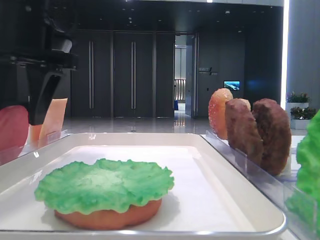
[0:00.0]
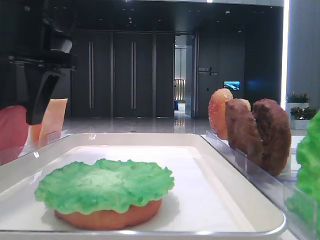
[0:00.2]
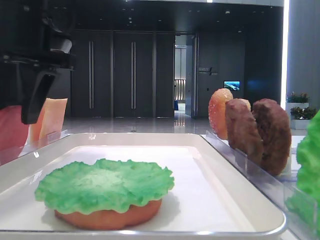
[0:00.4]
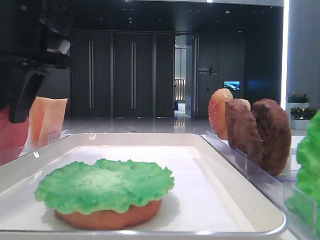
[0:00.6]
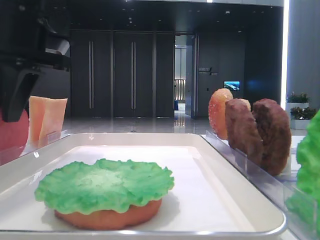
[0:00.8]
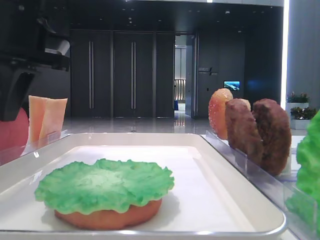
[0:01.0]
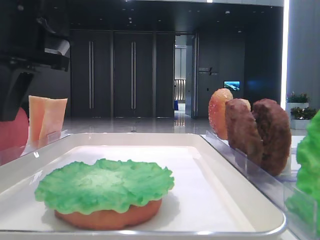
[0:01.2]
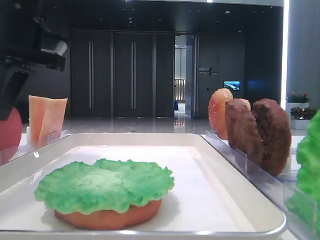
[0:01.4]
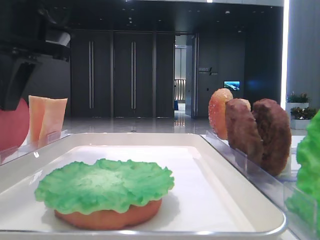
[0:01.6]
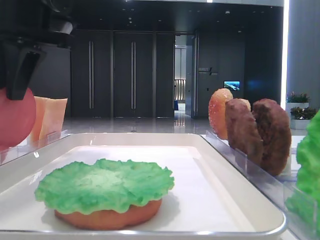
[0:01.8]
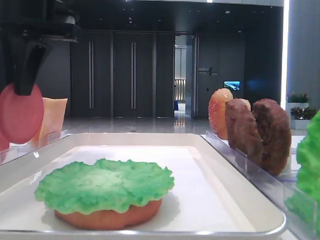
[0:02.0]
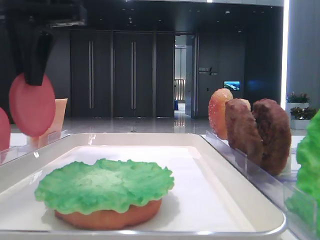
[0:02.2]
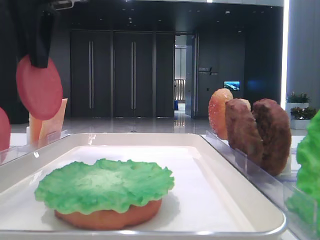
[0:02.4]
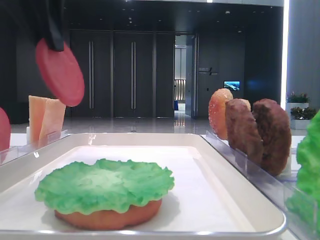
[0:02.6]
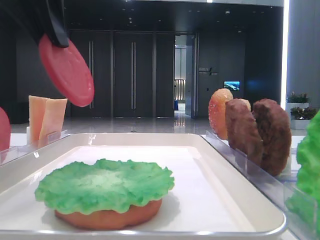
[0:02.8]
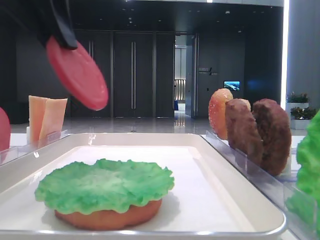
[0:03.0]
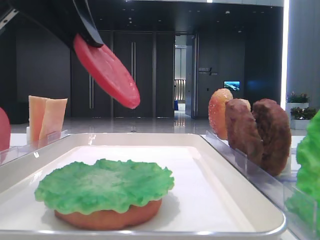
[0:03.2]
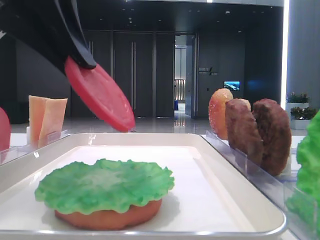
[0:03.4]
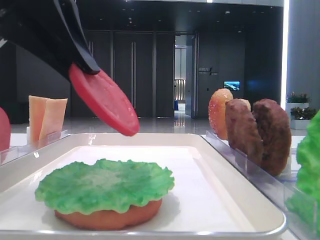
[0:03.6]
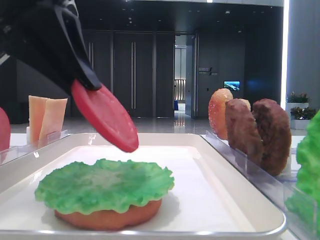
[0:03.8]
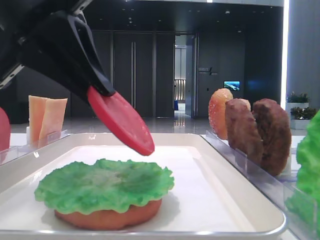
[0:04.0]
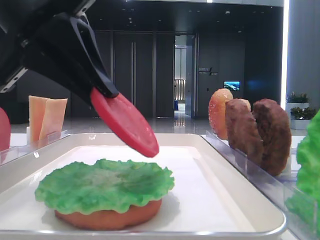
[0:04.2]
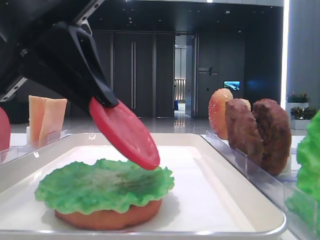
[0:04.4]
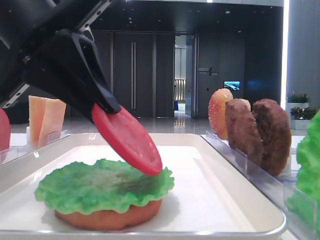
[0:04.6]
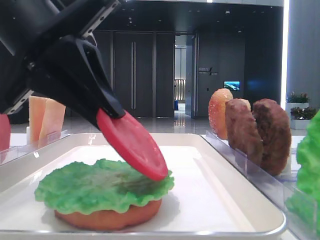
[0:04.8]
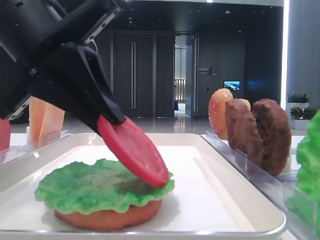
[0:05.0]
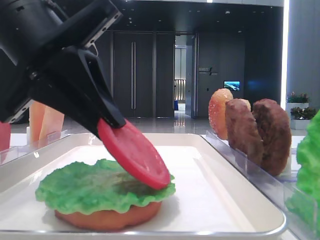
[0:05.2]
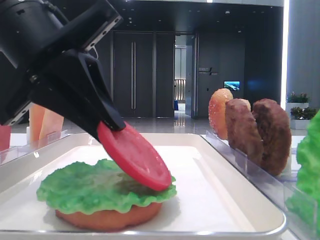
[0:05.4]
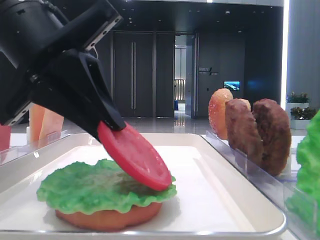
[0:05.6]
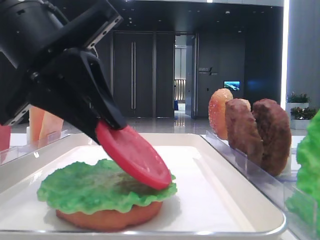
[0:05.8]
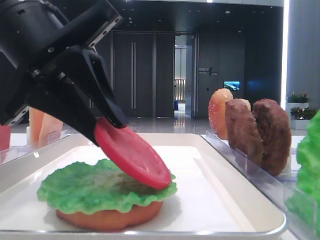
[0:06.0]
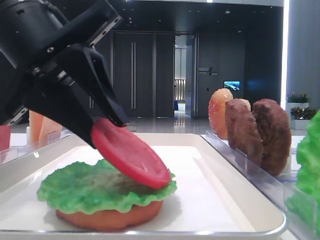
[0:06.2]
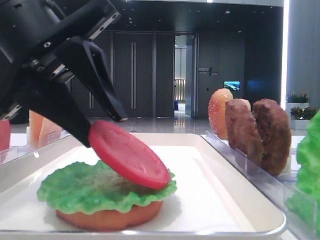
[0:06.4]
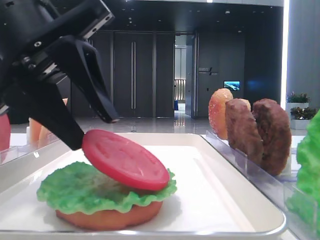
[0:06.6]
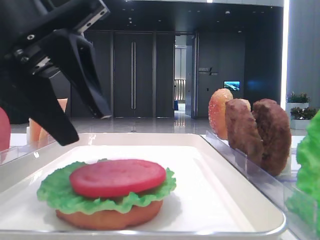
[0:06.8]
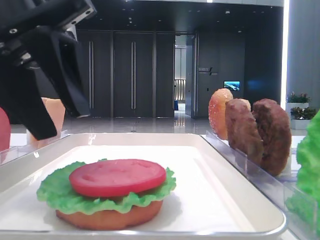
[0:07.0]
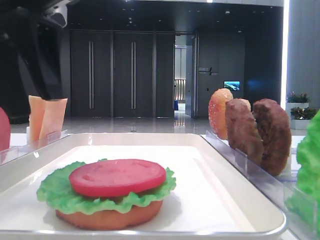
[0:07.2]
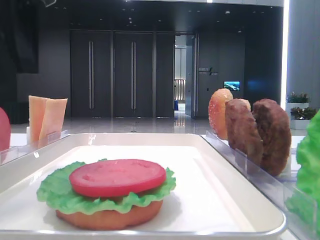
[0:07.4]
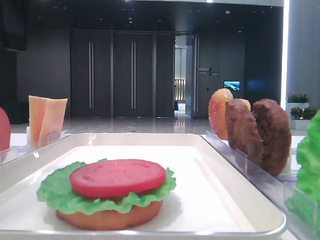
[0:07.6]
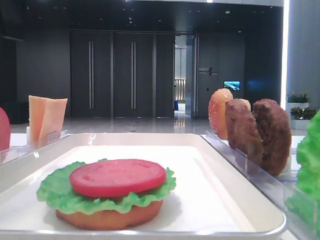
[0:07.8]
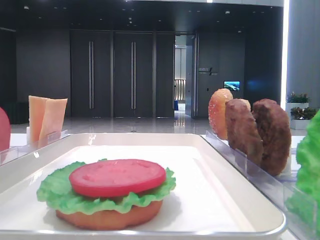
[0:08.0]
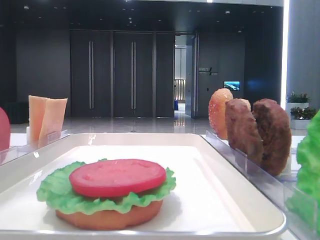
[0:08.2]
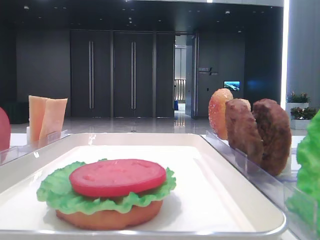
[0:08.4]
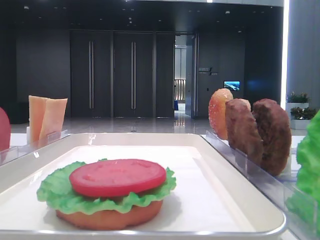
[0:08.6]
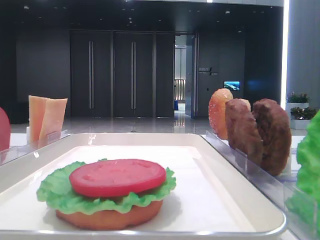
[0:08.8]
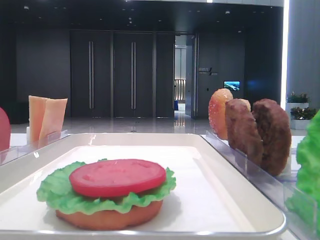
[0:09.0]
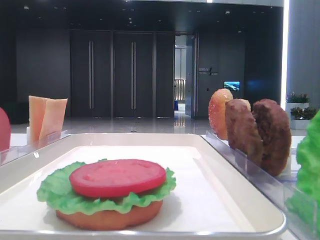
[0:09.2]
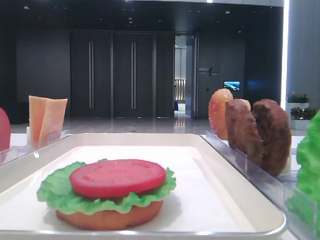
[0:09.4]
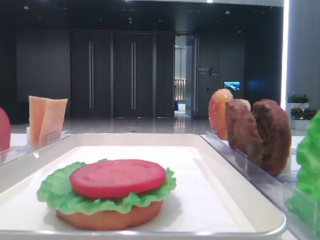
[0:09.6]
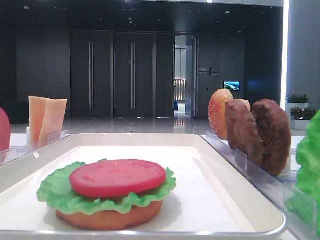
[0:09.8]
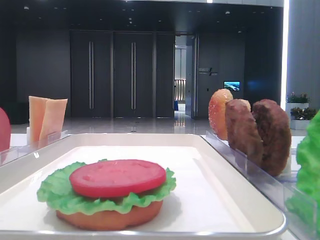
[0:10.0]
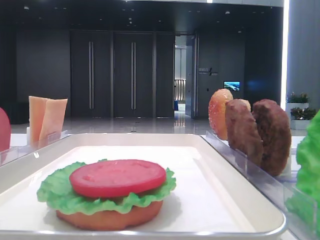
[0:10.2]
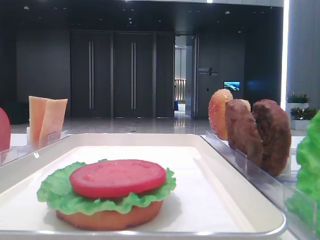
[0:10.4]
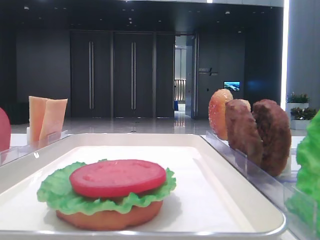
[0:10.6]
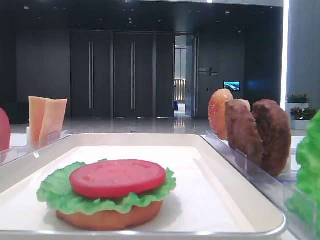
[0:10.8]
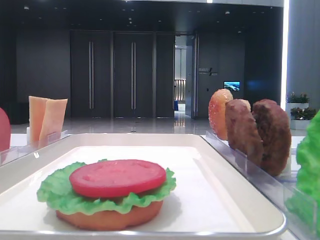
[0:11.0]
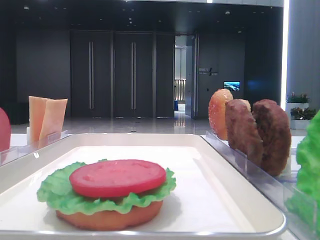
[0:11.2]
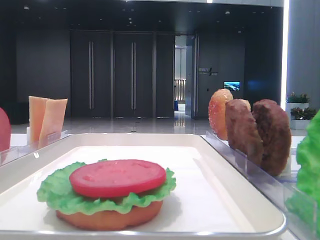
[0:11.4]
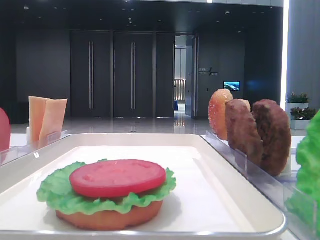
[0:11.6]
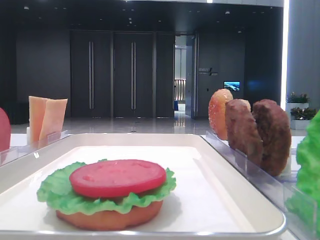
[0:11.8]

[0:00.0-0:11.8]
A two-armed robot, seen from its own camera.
Step, 0:02.0 to 0:06.8: Place the tomato slice on the lettuce leaf with the left hand.
0:00.0 to 0:01.4: The left gripper closes.
0:01.4 to 0:03.0: The left gripper heads backward and upward, covering roughly 10 cm.
0:03.0 to 0:04.4: The left gripper travels downward by about 10 cm.
0:04.4 to 0:06.0: The grippers make only small movements.
0:06.0 to 0:07.4: The left gripper goes roughly 10 cm upward, and opens up.
0:07.4 to 0:08.8: The left gripper shifts some 15 cm to the left and upward.
0:10.4 to 0:11.8: Both grippers stay about where they are.

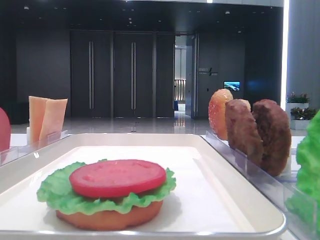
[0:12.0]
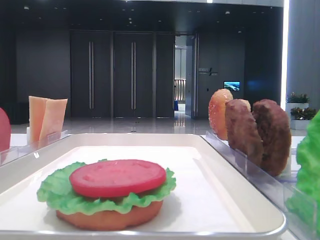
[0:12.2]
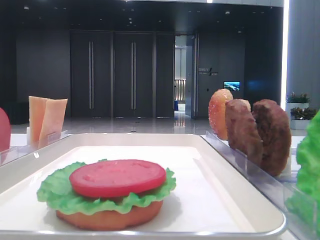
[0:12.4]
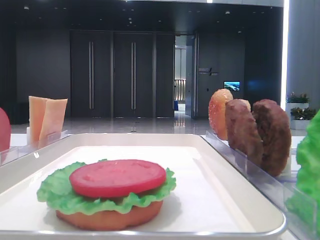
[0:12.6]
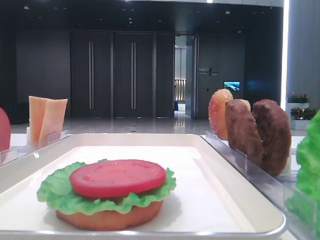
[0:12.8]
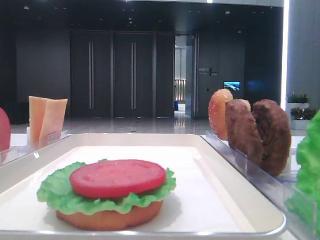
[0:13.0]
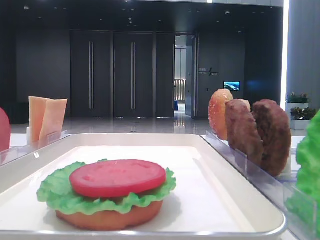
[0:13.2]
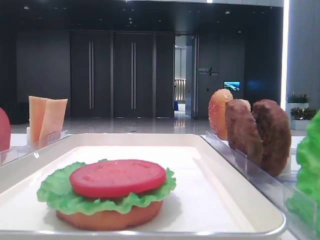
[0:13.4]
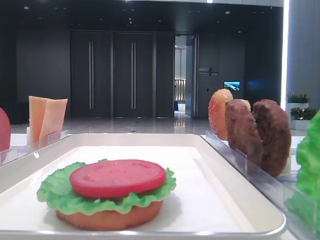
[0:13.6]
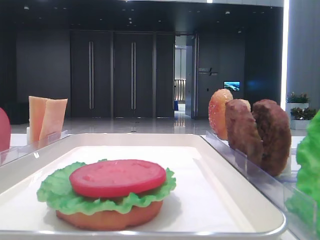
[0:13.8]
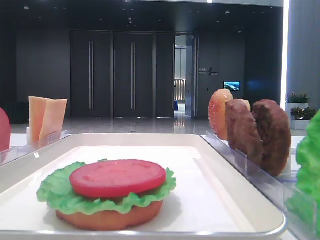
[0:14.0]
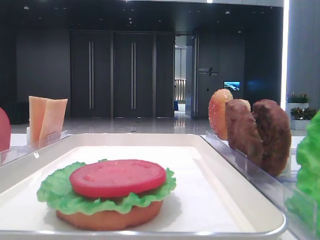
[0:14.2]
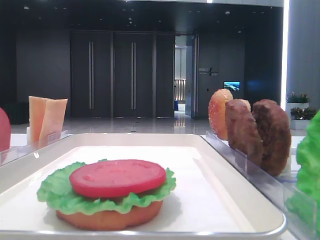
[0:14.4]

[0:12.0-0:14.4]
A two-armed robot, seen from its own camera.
0:12.0 to 0:14.4: The two grippers keep their place.
